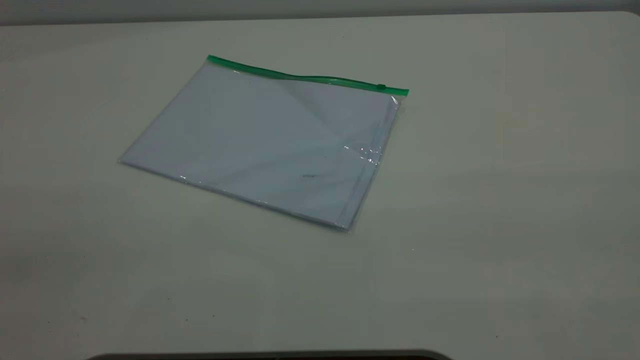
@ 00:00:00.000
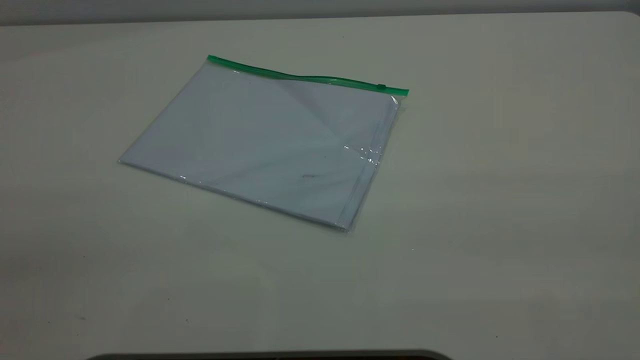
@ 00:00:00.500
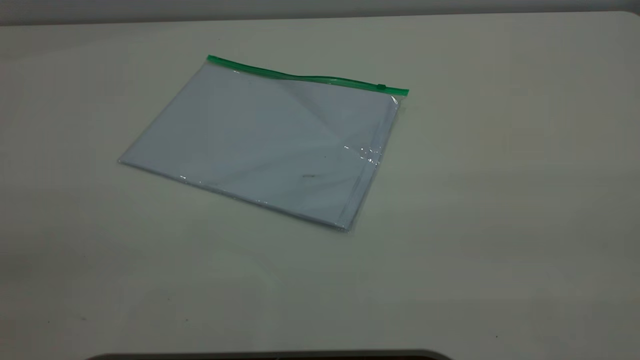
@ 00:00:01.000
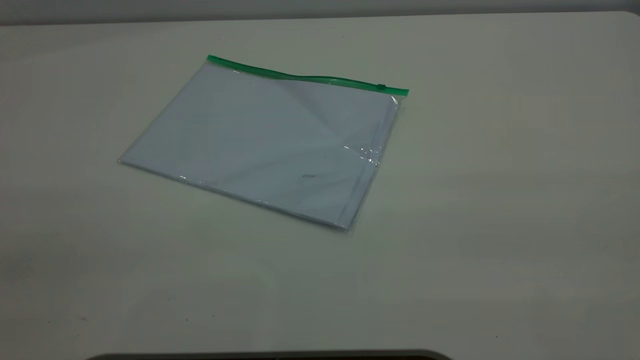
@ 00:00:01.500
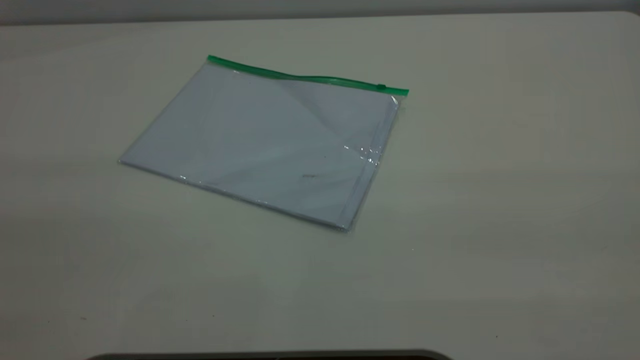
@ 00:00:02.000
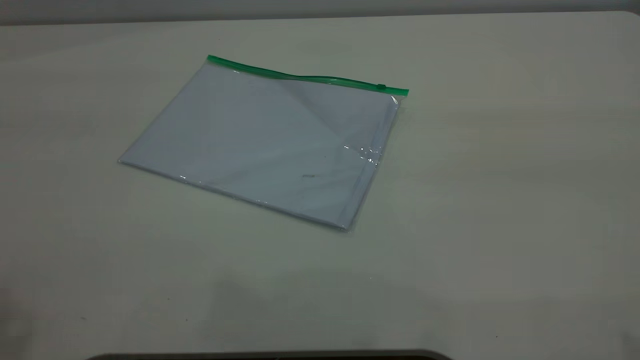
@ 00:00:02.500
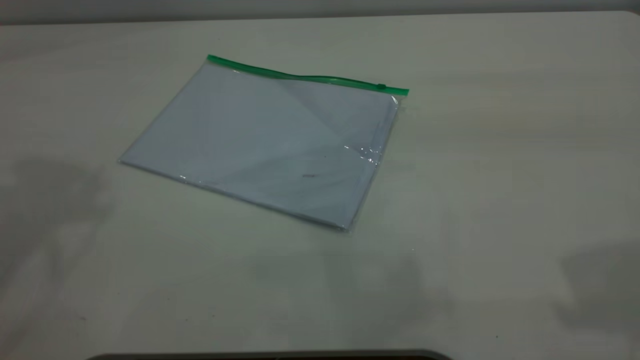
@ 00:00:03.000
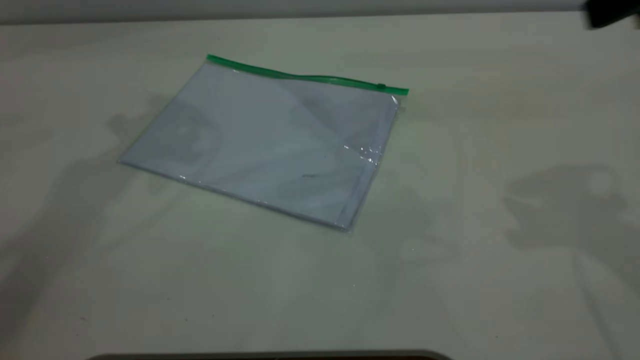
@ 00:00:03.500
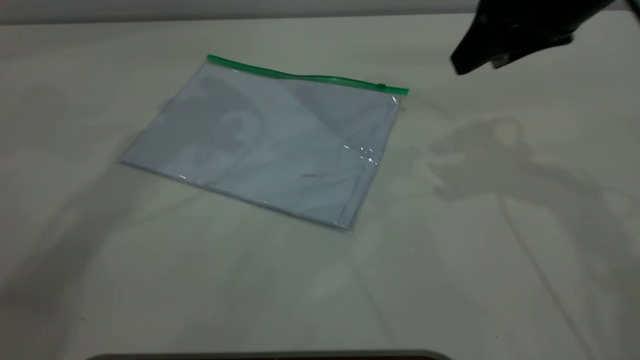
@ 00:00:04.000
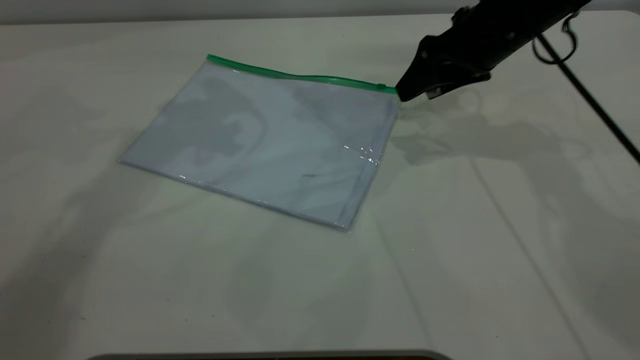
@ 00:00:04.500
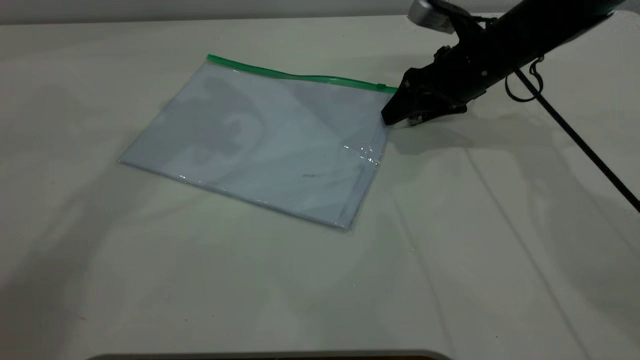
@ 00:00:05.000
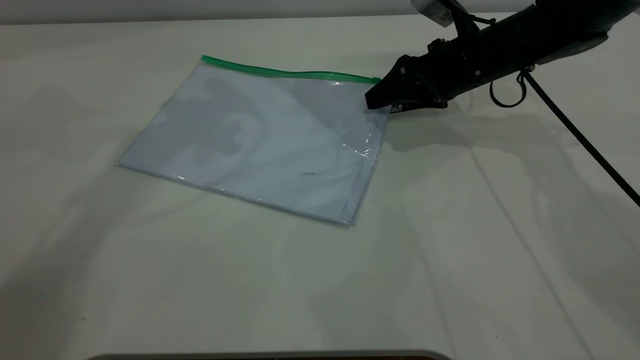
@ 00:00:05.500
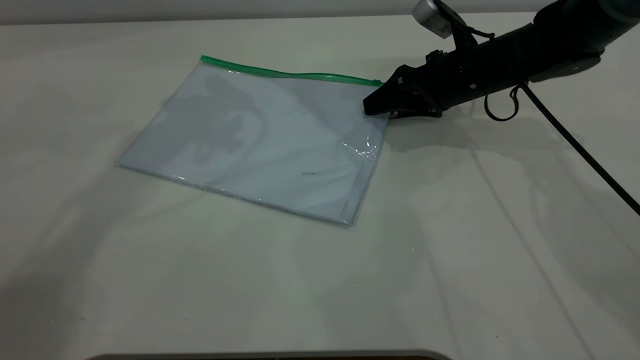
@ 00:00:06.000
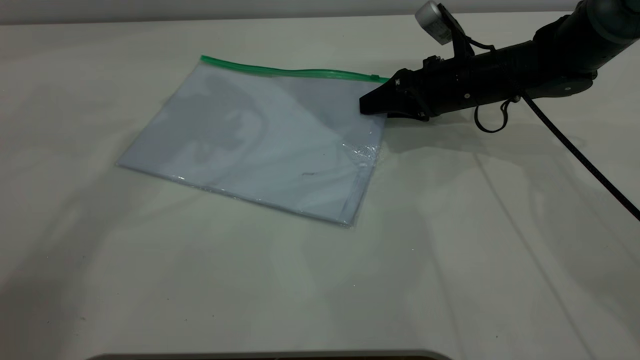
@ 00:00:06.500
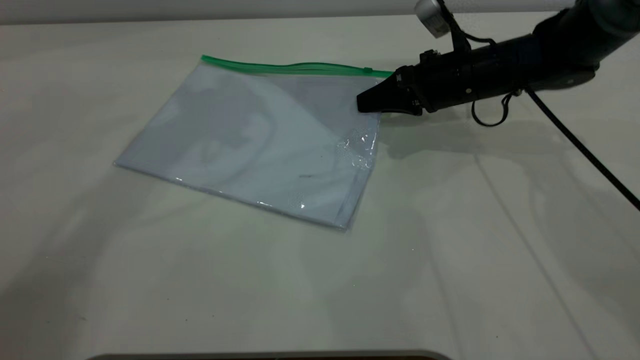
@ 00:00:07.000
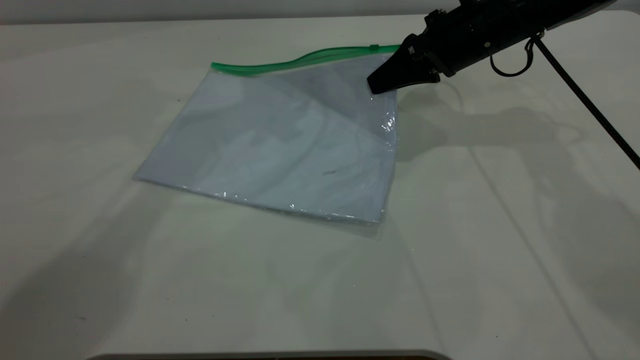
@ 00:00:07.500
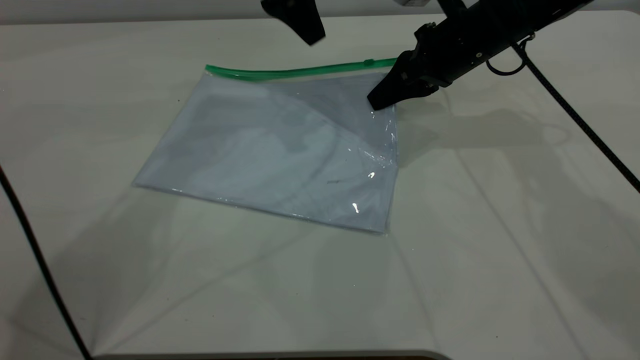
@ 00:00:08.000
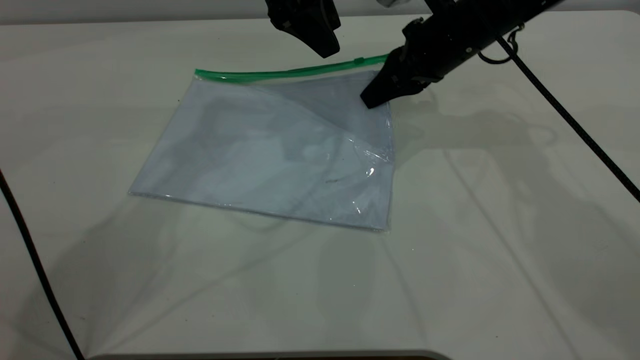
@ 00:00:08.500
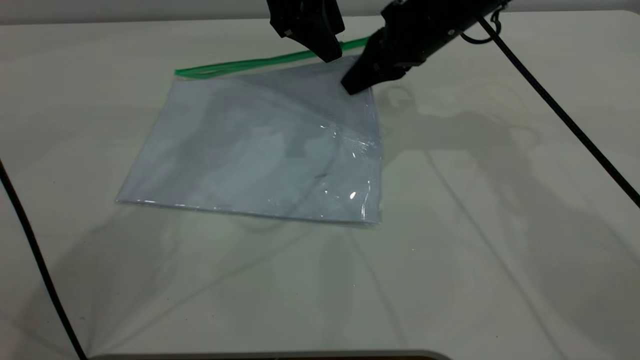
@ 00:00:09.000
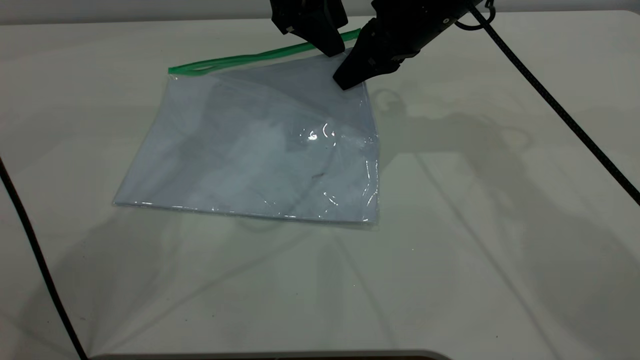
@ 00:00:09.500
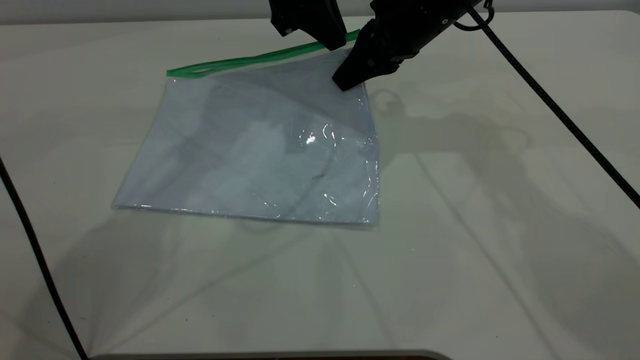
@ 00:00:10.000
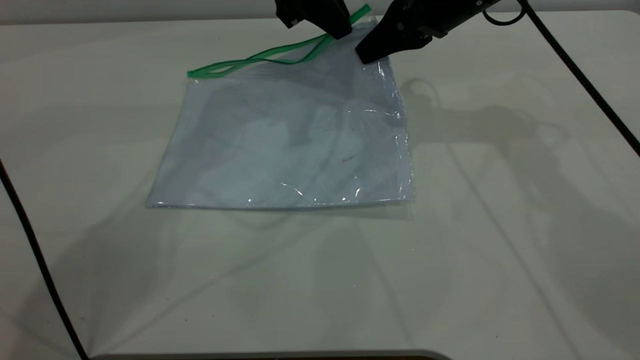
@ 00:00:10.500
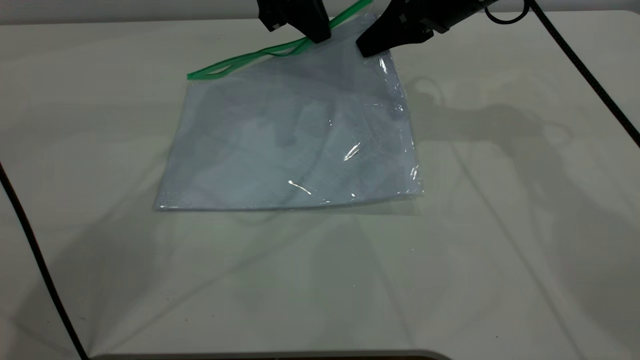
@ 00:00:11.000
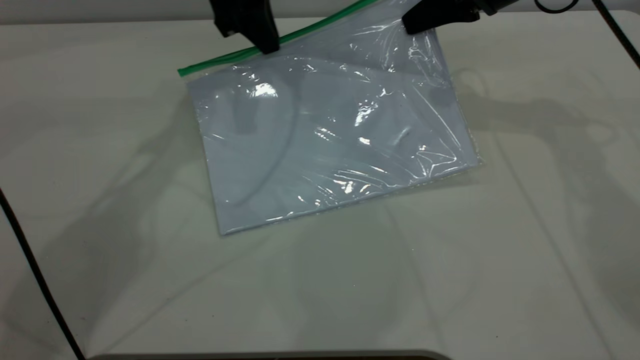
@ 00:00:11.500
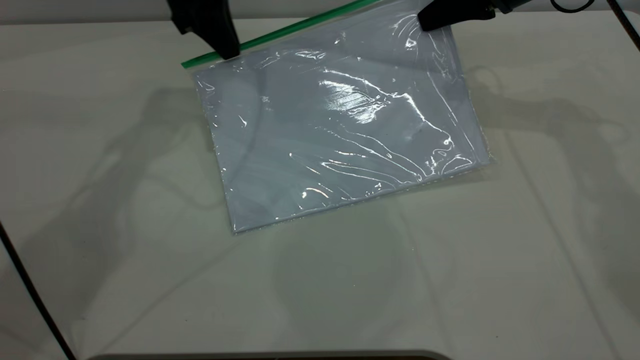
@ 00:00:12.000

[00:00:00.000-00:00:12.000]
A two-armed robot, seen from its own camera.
Step, 00:00:00.000 to 00:00:07.000: Pick up the transparent plastic bag with the right gripper.
00:00:02.000 to 00:00:04.000: The right gripper travels forward and downward by roughly 40 cm.
00:00:04.000 to 00:00:06.000: The right gripper is displaced downward and forward by roughly 20 cm.
00:00:06.000 to 00:00:08.000: The left gripper goes roughly 10 cm to the right and downward, while the right gripper heads upward, covering roughly 5 cm, and closes its fingers.
00:00:08.000 to 00:00:10.000: The right gripper travels upward by approximately 5 cm, while the left gripper closes its fingers.
00:00:10.000 to 00:00:12.000: The left gripper travels to the left by approximately 10 cm; the right gripper is displaced to the right by approximately 10 cm.

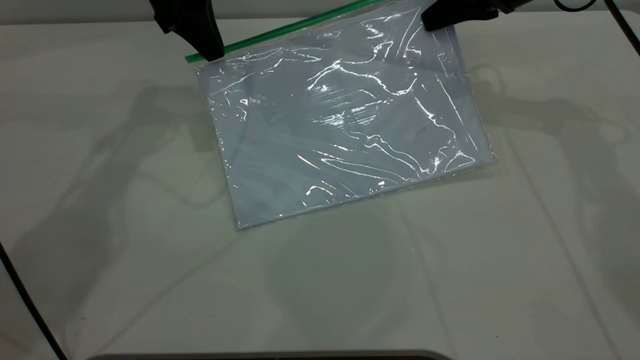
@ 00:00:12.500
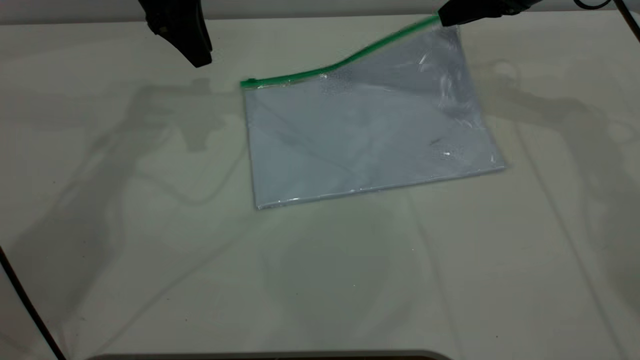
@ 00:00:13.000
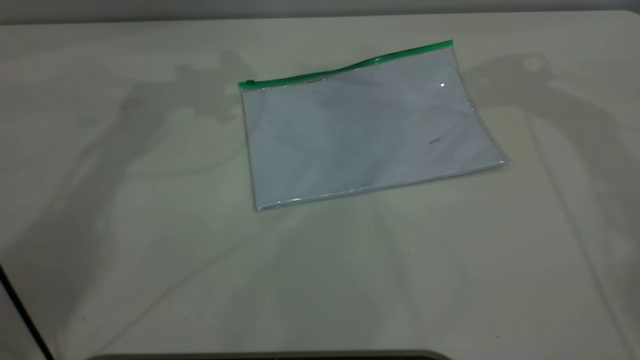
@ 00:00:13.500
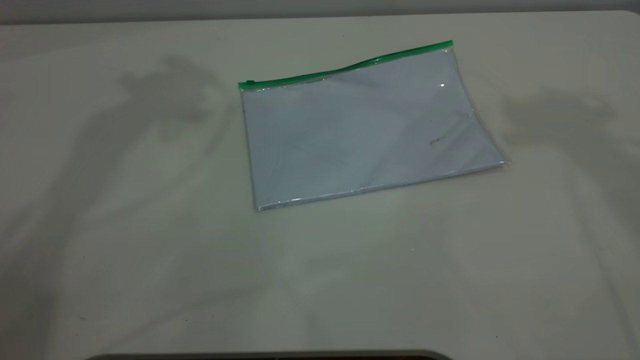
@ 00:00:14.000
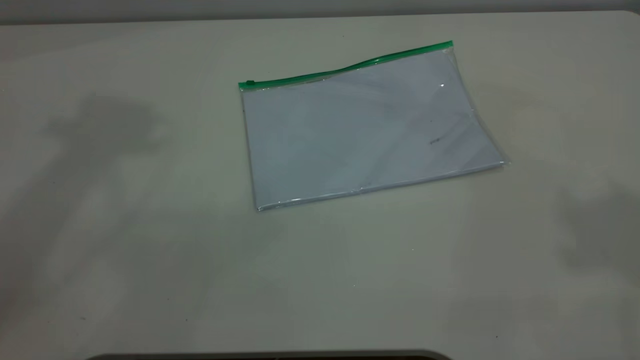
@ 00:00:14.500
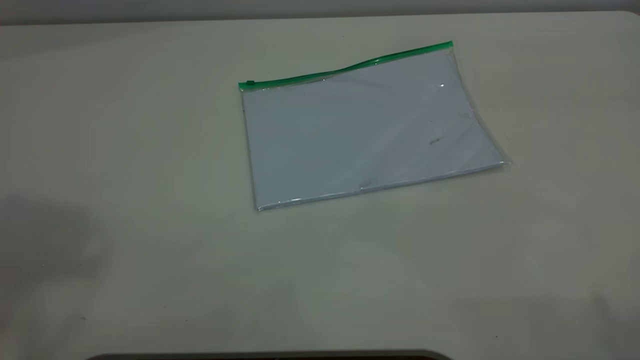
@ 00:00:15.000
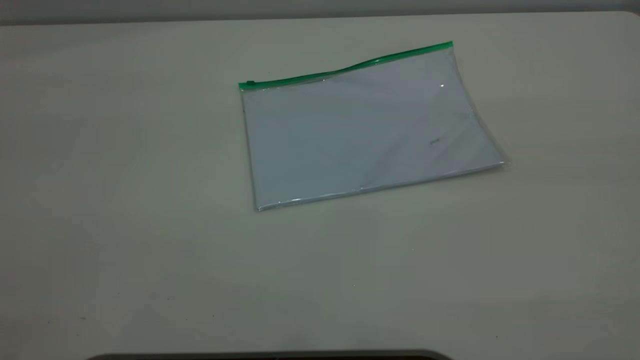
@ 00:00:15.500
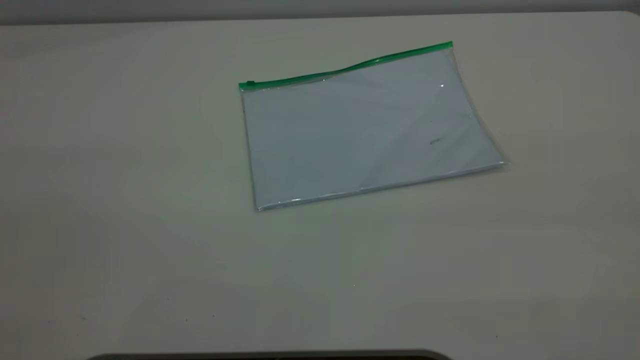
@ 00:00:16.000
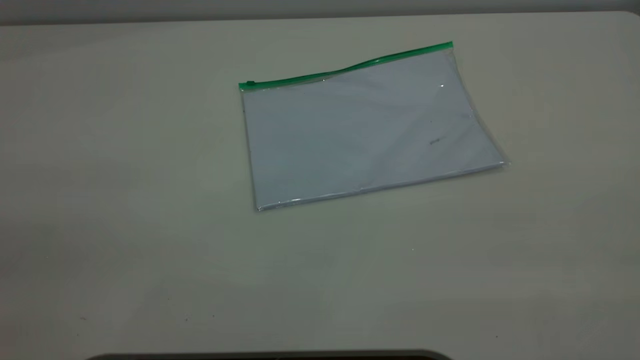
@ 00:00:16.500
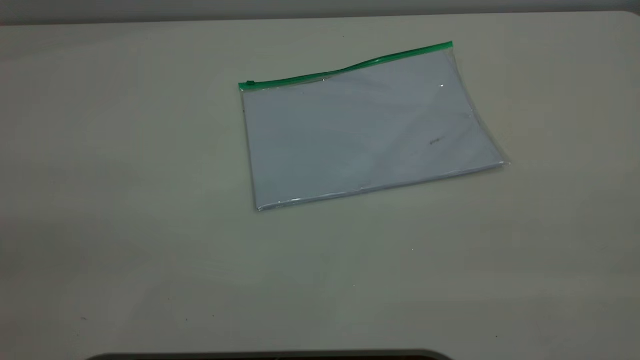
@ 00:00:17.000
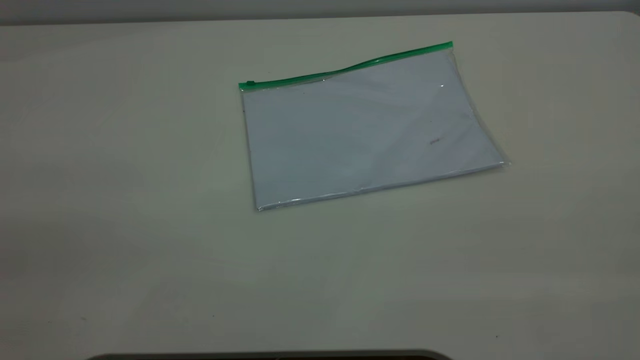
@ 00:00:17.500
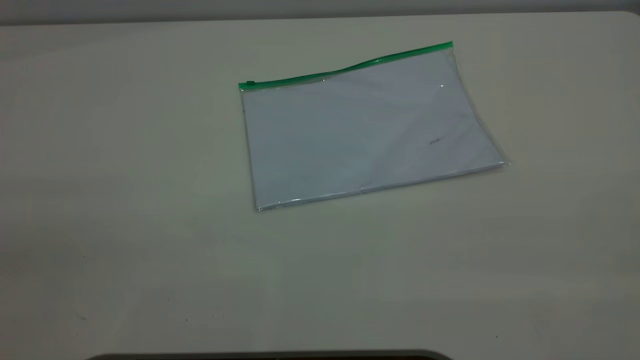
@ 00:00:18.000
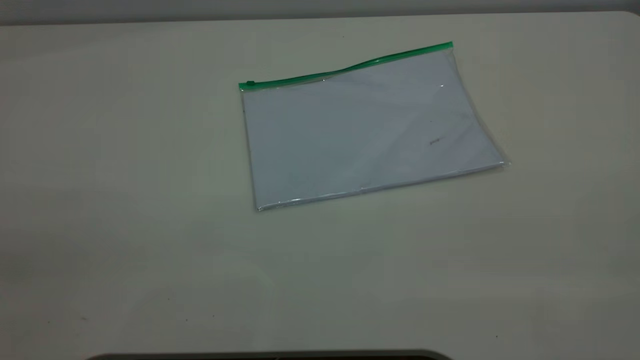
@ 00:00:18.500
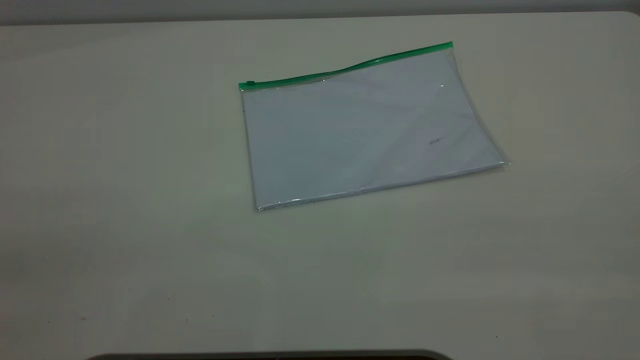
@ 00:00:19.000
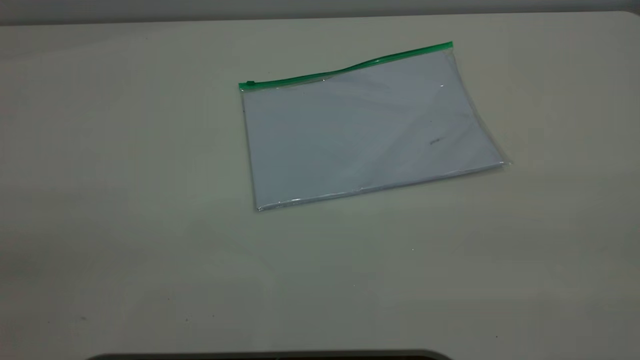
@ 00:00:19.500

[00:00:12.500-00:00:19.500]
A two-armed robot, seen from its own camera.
00:00:12.500 to 00:00:14.500: The right gripper heads upward and backward, covering approximately 50 cm, and opens its fingers. Meanwhile the left gripper goes about 40 cm upward, and opens its fingers.
